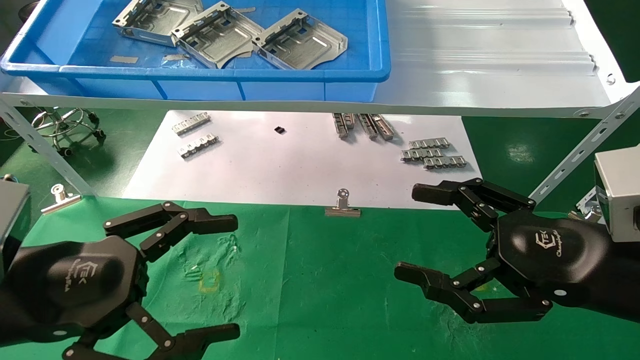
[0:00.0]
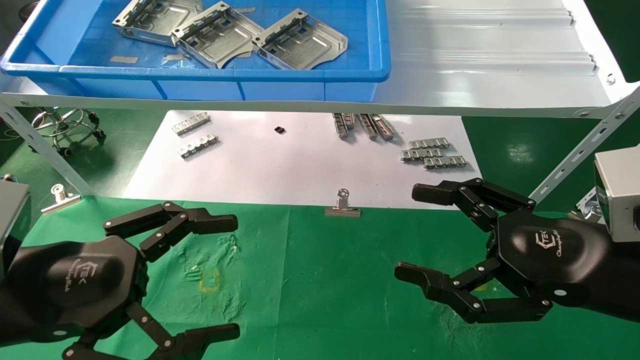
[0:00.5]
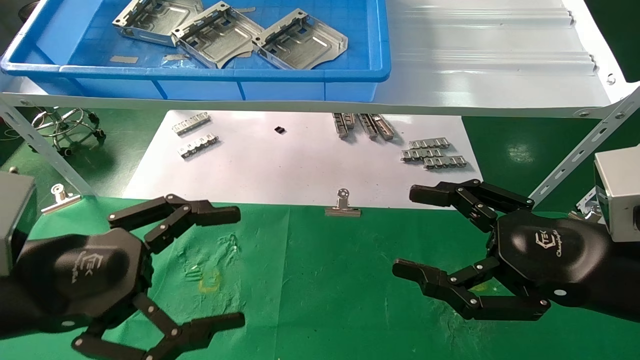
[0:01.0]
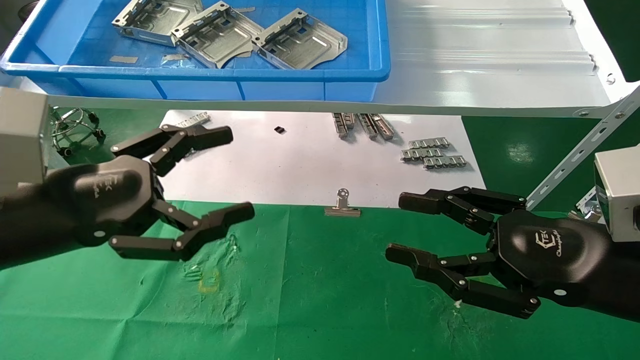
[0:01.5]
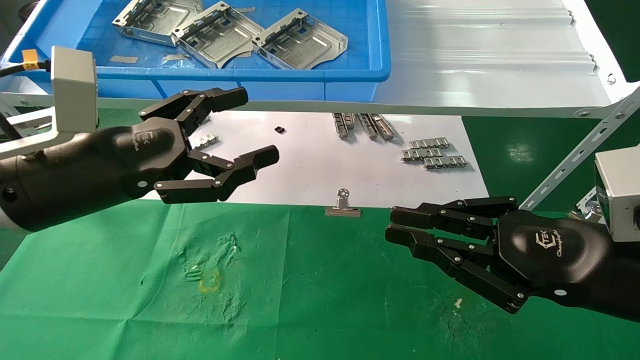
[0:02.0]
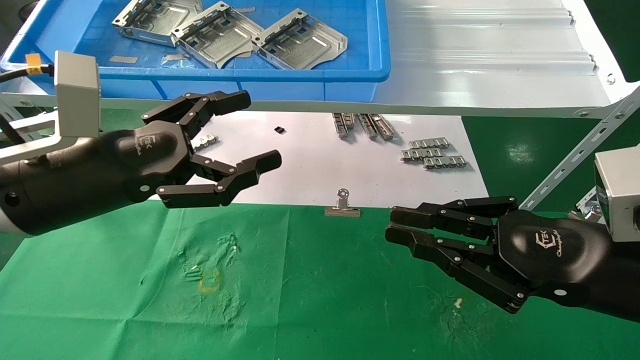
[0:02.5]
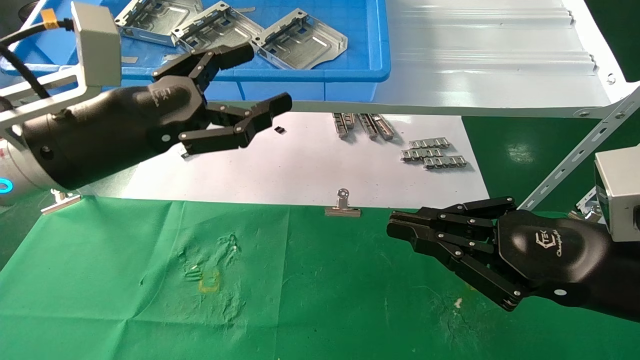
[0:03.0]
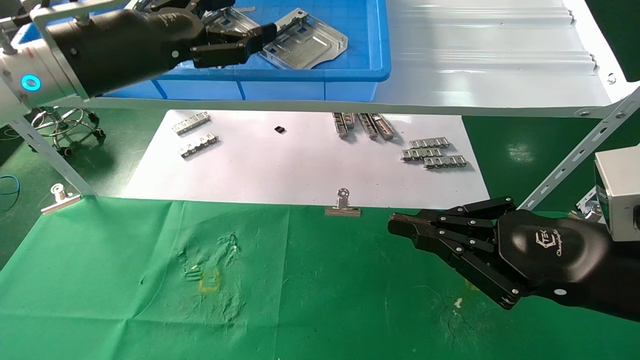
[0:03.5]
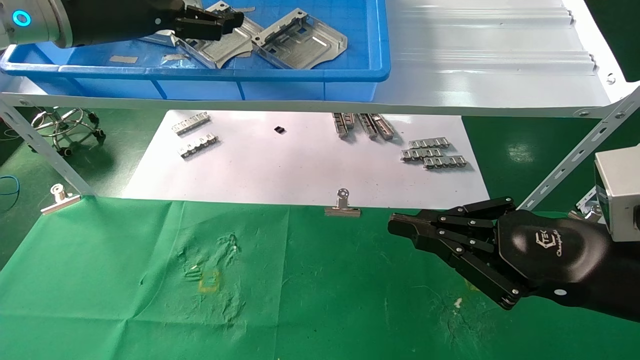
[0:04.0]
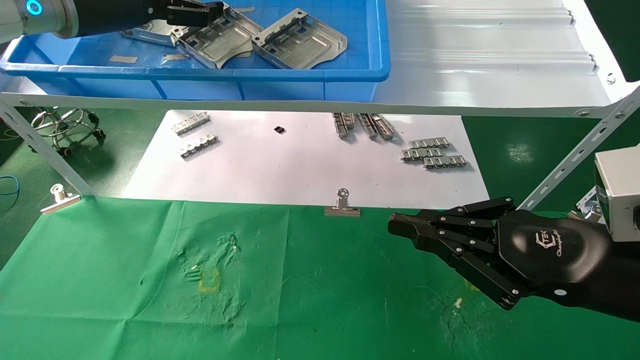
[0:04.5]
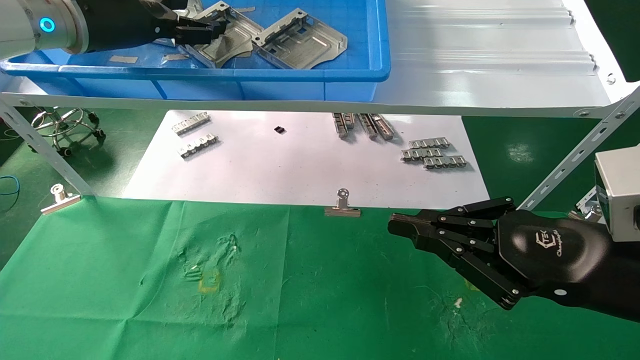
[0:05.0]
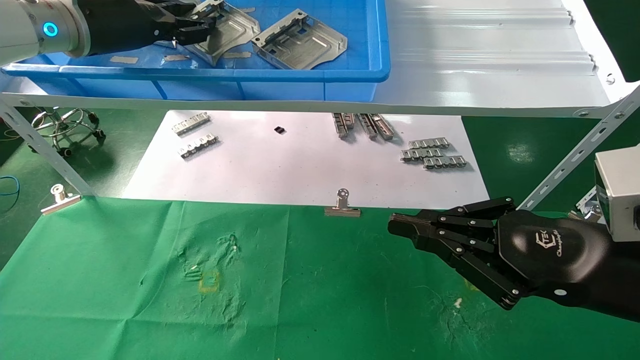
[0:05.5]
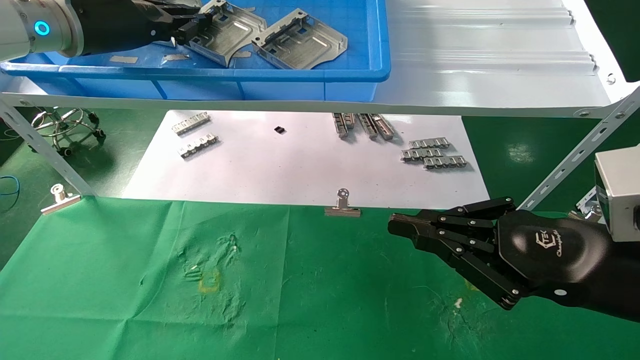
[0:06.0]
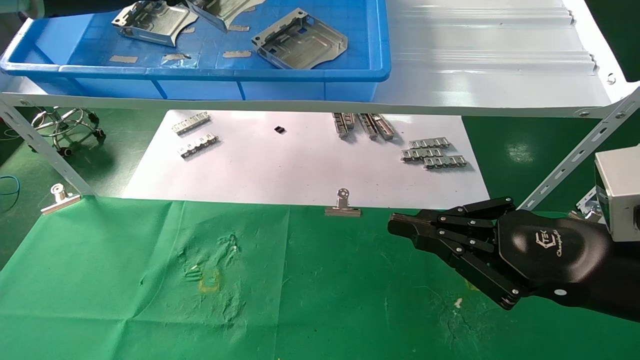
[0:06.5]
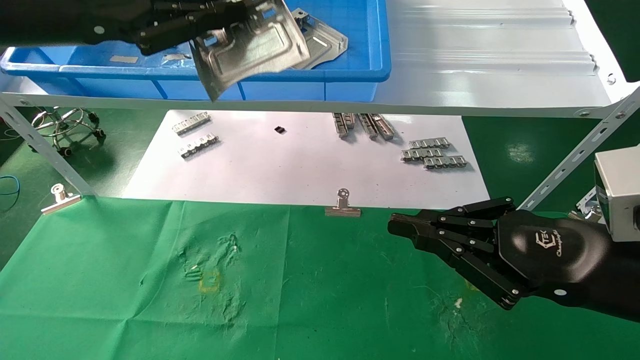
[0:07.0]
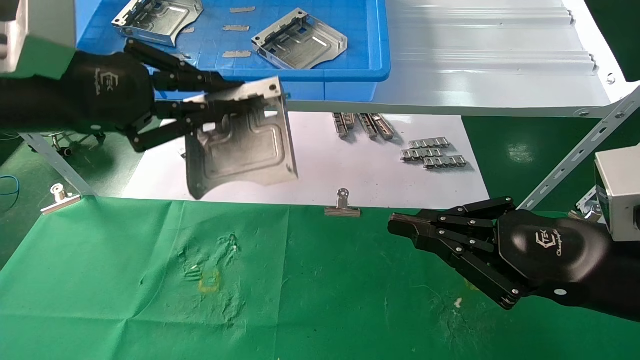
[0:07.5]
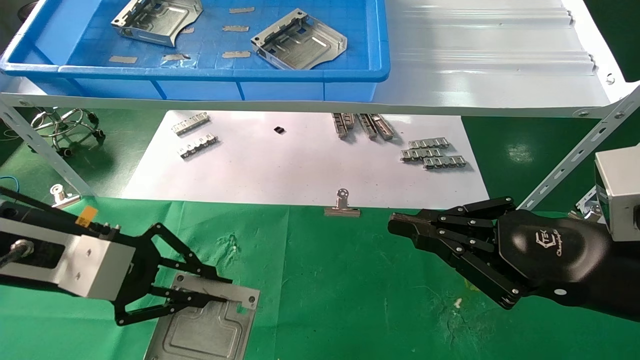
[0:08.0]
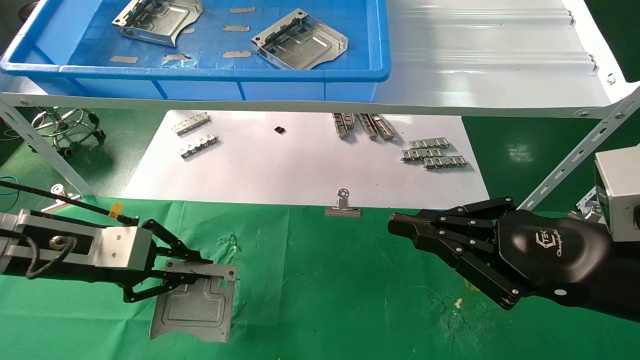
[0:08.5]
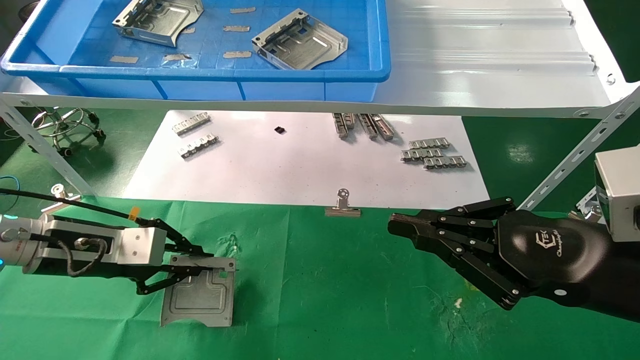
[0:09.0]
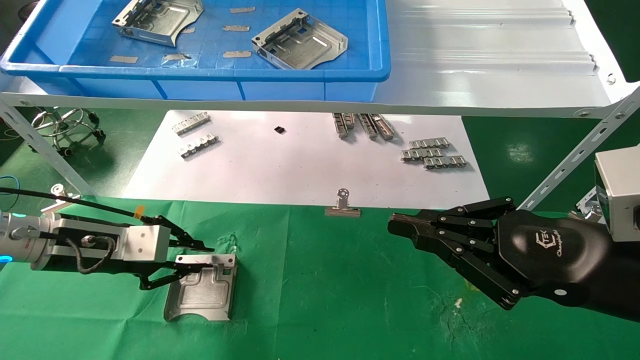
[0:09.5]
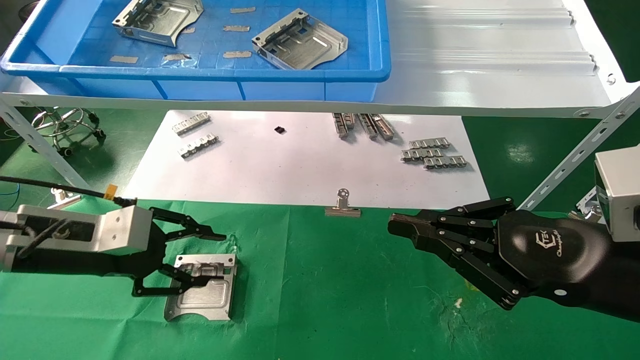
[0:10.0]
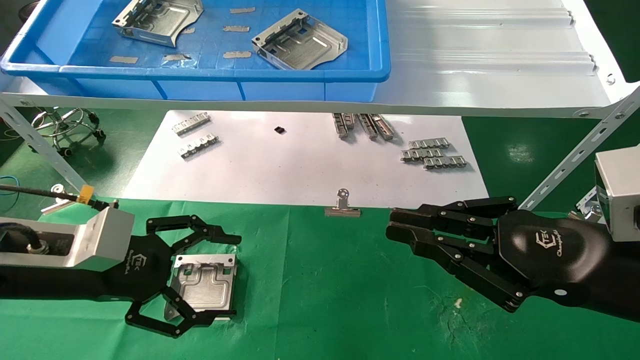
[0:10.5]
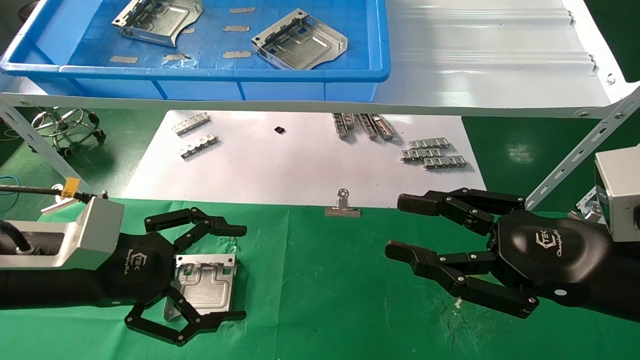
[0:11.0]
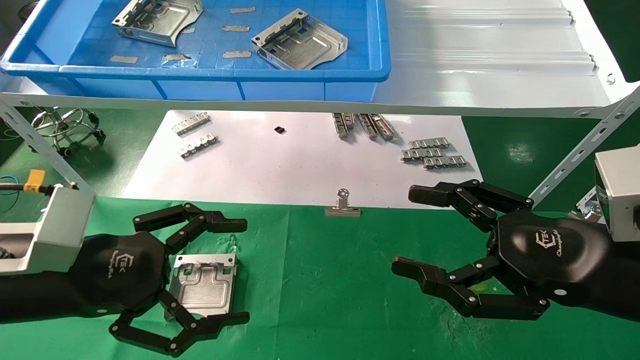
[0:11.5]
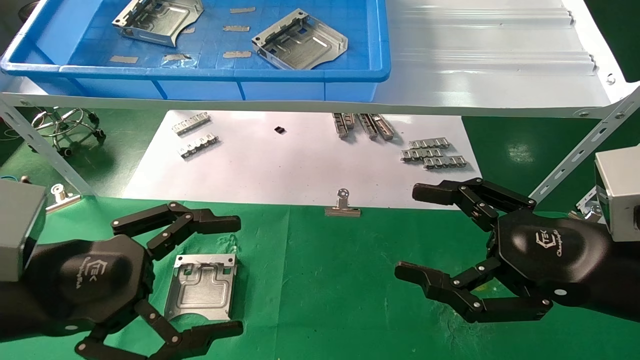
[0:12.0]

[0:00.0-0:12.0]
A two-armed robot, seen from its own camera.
Task of the whole recording: use the mechanical arm to pick up the parts and place them on the table.
Step, 0:01.5 to 0:05.5: Pick up the hard drive bracket from the feeding area.
Step, 0:06.0 to 0:09.5: Place the hard drive bracket into the box.
0:00.0 to 0:02.0: The right gripper closes, while the left gripper goes some 10 cm forward and upward.
0:02.0 to 0:04.0: The left gripper moves upward and forward, some 20 cm.
0:04.0 to 0:06.0: The left gripper closes its fingers.
0:06.0 to 0:08.0: The left gripper goes some 25 cm downward and backward.
0:08.0 to 0:10.0: The left gripper moves downward, approximately 5 cm.
0:10.0 to 0:12.0: The right gripper opens its fingers. Meanwhile the left gripper travels backward by approximately 10 cm, and opens up.

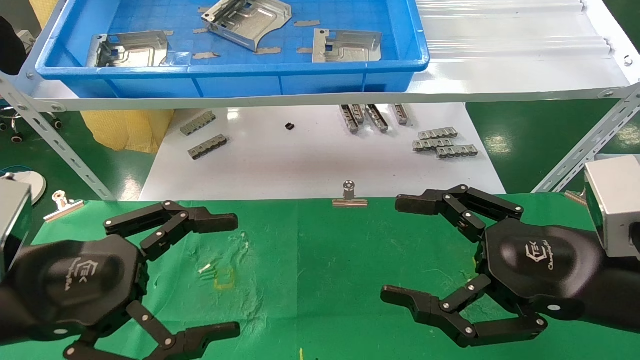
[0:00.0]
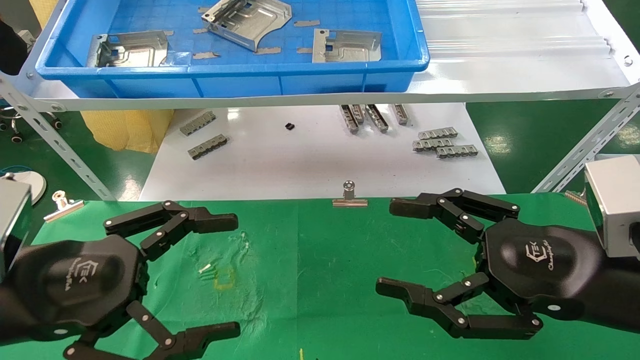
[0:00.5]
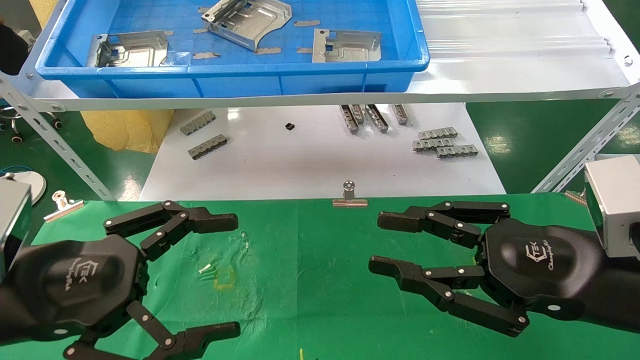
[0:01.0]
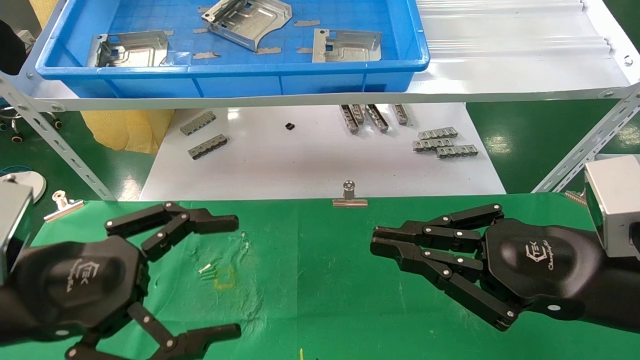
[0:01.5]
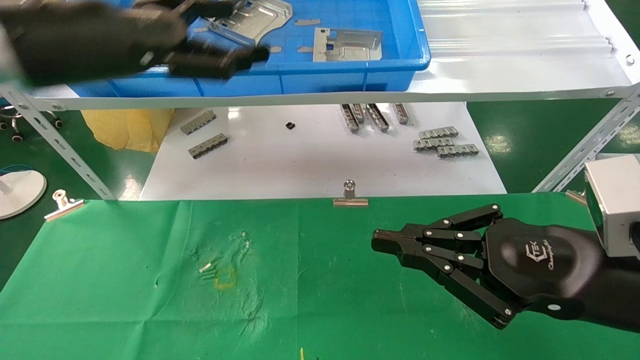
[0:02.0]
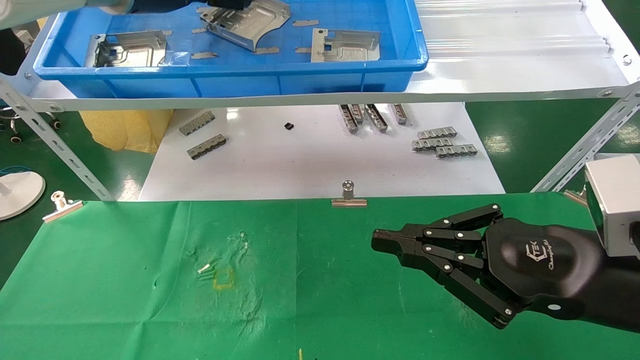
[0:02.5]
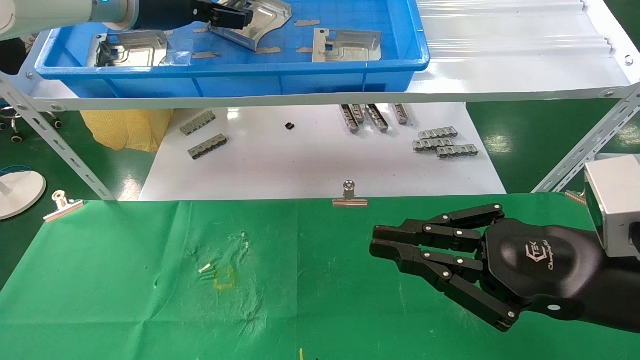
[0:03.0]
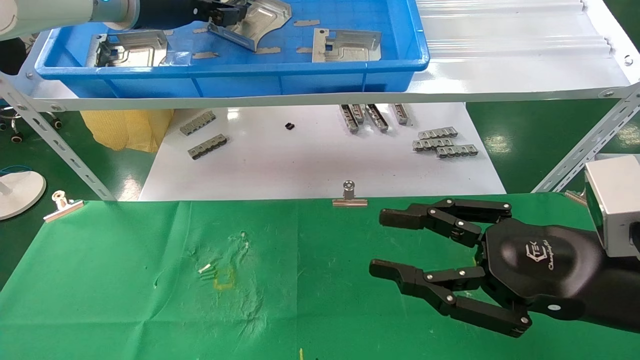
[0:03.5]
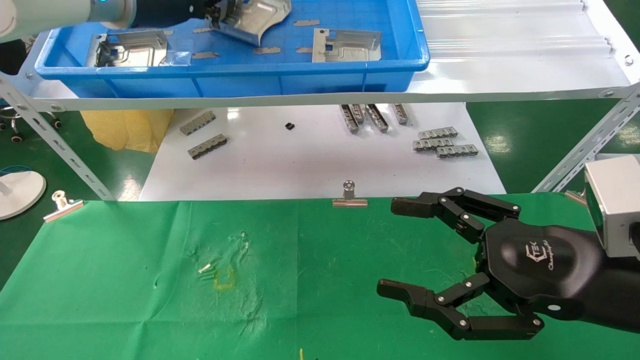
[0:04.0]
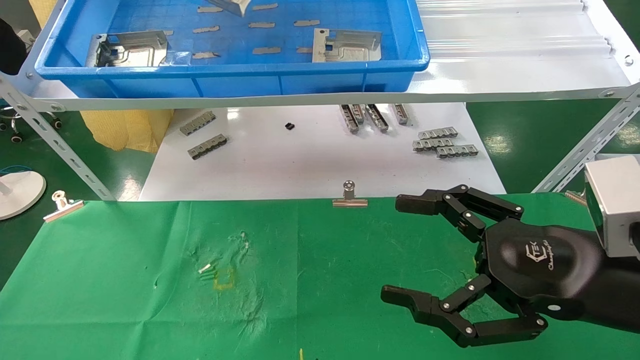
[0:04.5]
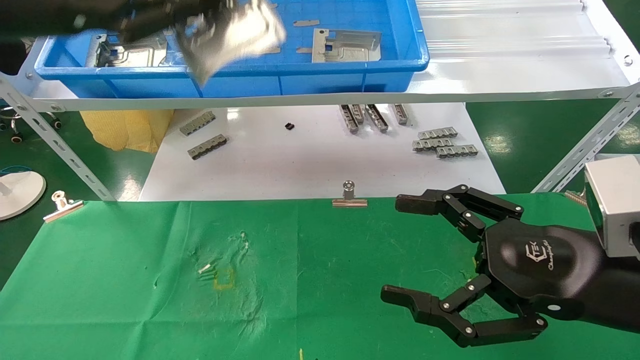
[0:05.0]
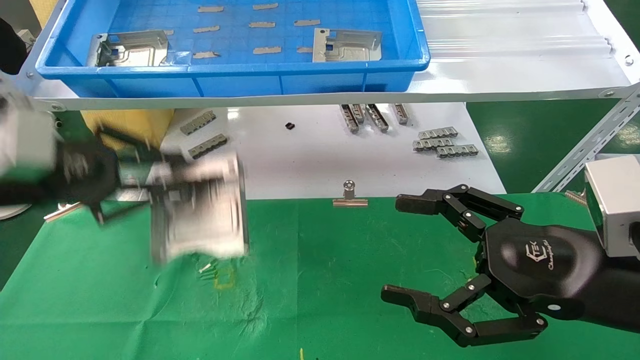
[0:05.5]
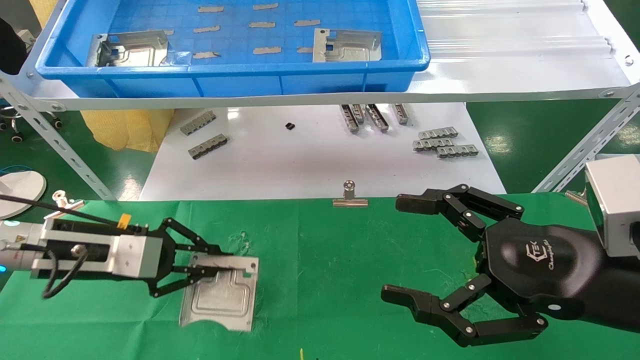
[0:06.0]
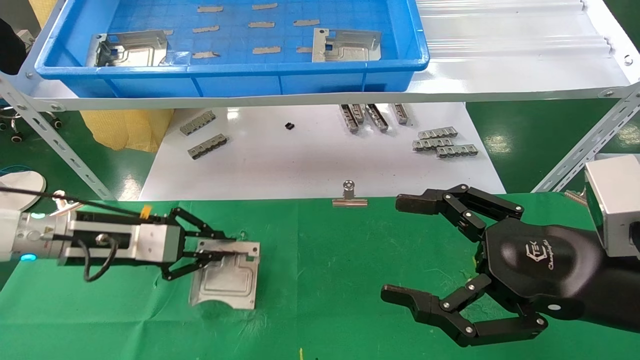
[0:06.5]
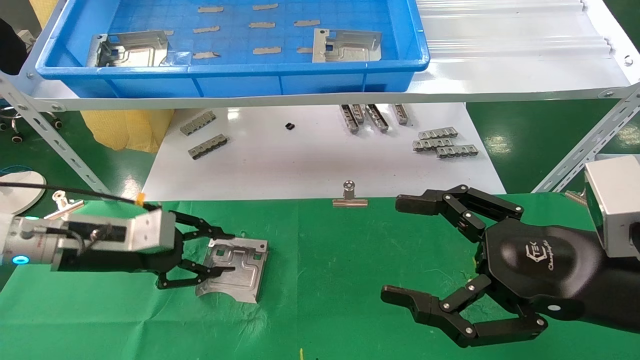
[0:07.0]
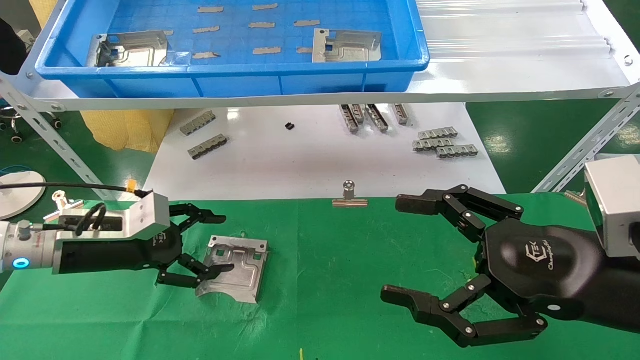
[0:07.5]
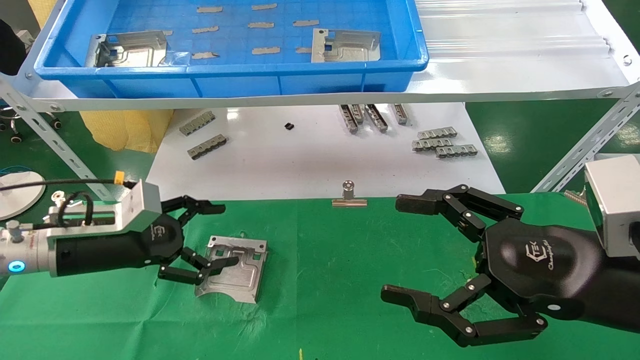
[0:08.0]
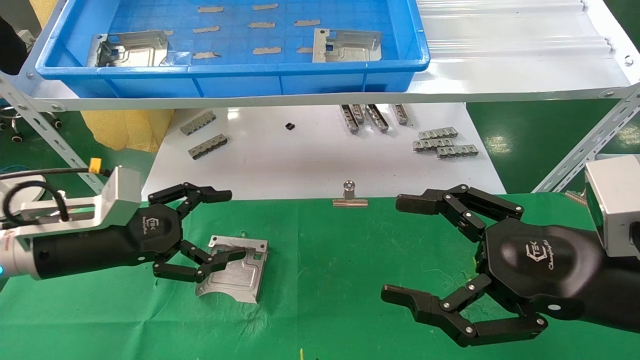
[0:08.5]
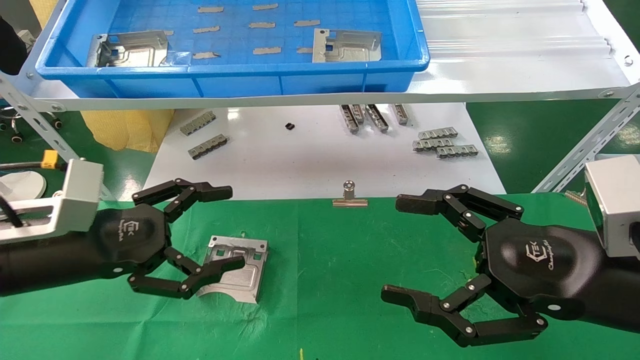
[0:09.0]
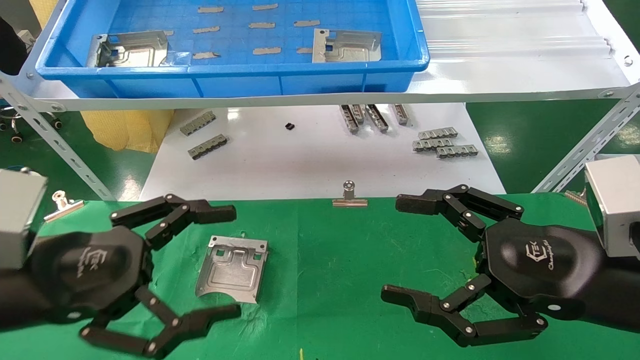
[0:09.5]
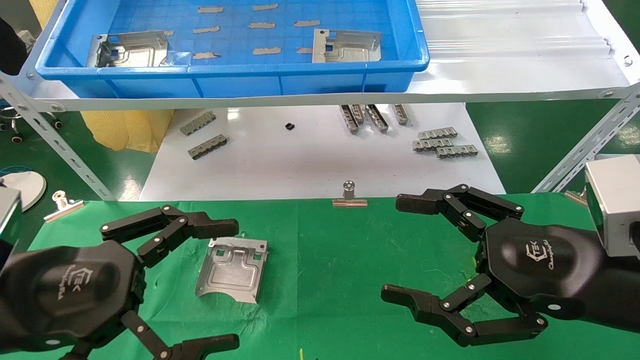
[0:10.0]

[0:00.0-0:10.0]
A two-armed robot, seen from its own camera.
Task of the whole recording: use the mechanical arm to pick up the parts and place them on the table.
Step, 0:02.0 to 0:03.5: Pick up the hard drive bracket from the feeding area.
Step, 0:04.0 to 0:07.0: Place the hard drive bracket into the box.
0:00.0 to 0:02.0: The right gripper closes up. Meanwhile the left gripper goes approximately 25 cm upward and forward.
0:02.0 to 0:04.0: The right gripper opens up. Meanwhile the left gripper moves forward and upward, about 10 cm, and closes.
0:04.0 to 0:06.0: The left gripper moves downward, approximately 30 cm.
0:06.0 to 0:08.0: The left gripper opens up.
0:08.0 to 0:10.0: The left gripper shifts some 15 cm backward.
